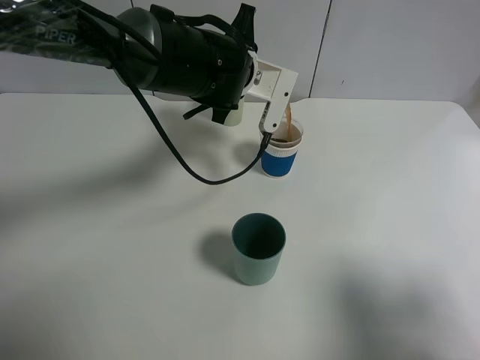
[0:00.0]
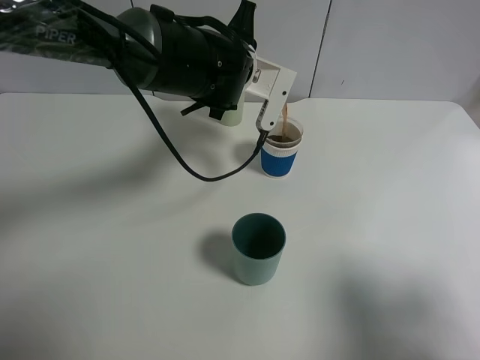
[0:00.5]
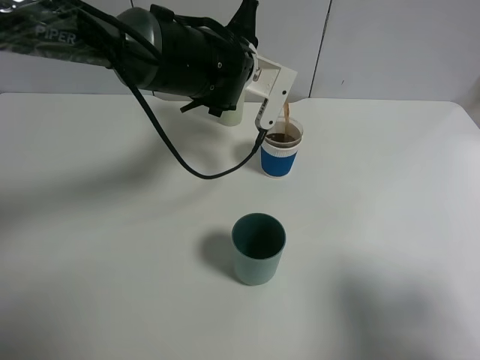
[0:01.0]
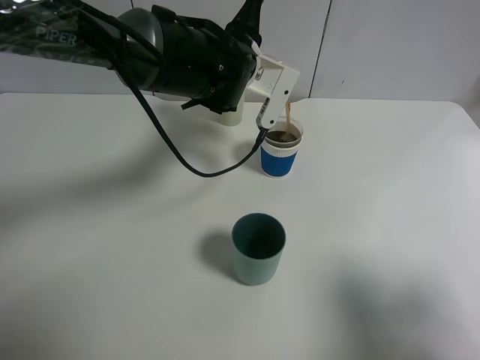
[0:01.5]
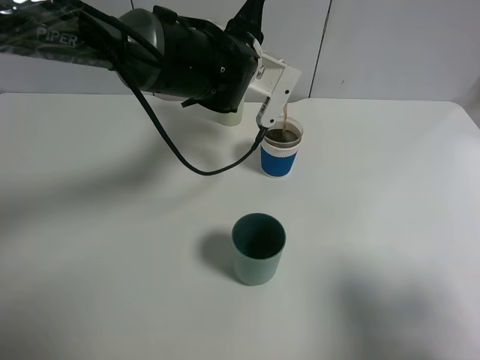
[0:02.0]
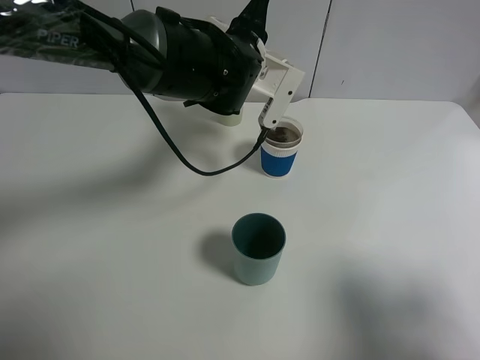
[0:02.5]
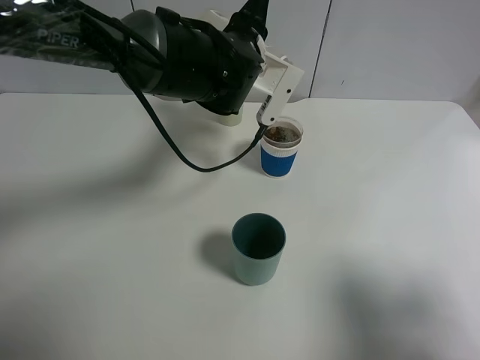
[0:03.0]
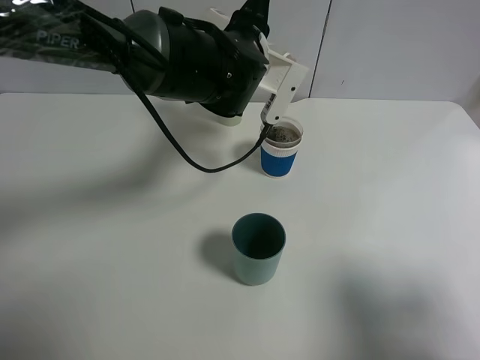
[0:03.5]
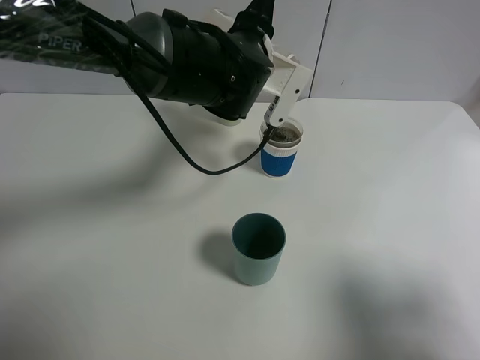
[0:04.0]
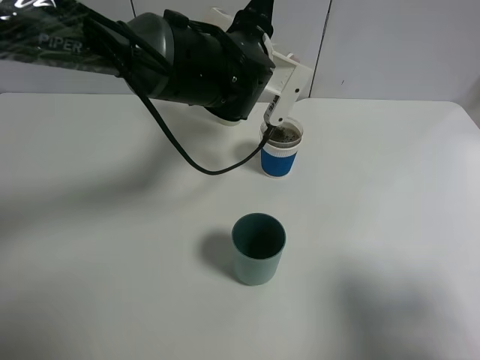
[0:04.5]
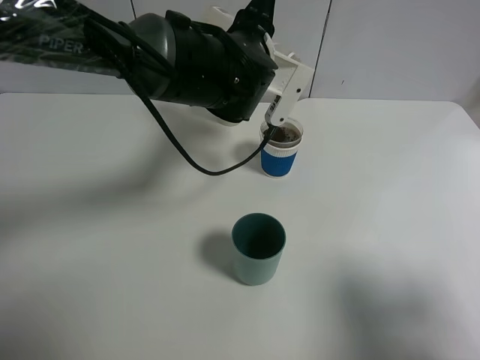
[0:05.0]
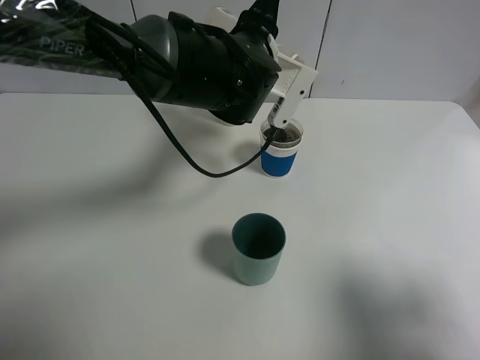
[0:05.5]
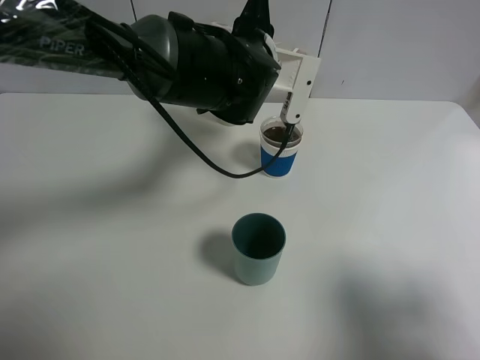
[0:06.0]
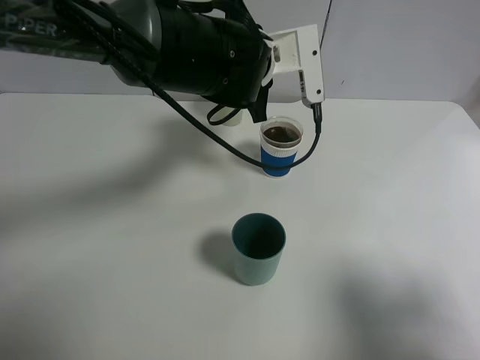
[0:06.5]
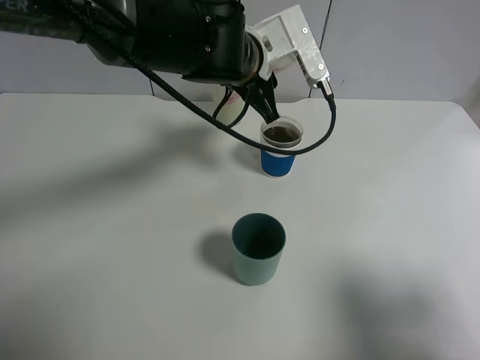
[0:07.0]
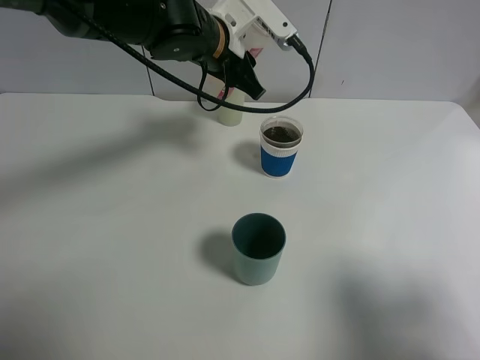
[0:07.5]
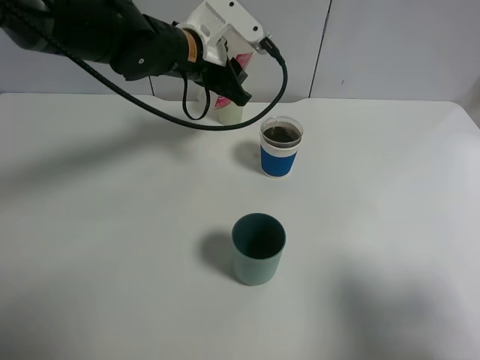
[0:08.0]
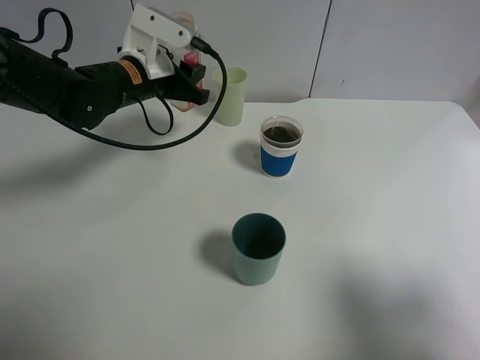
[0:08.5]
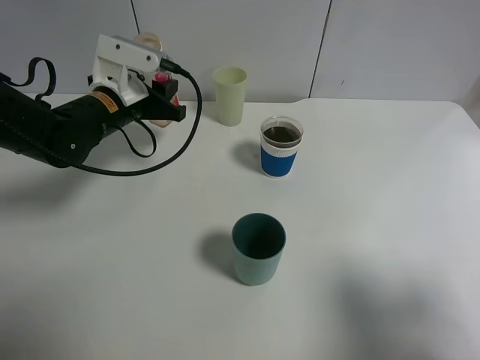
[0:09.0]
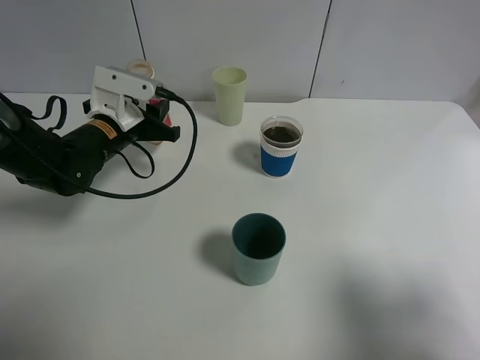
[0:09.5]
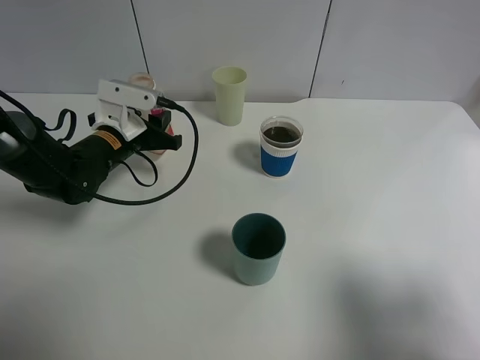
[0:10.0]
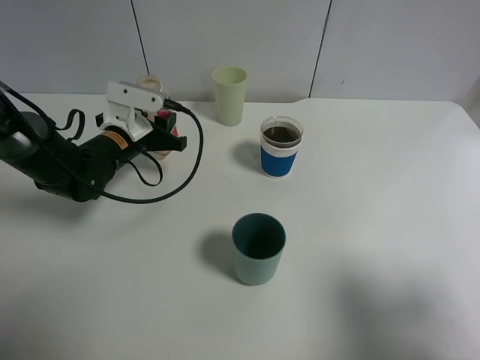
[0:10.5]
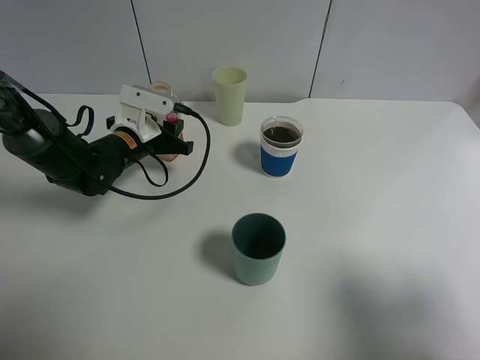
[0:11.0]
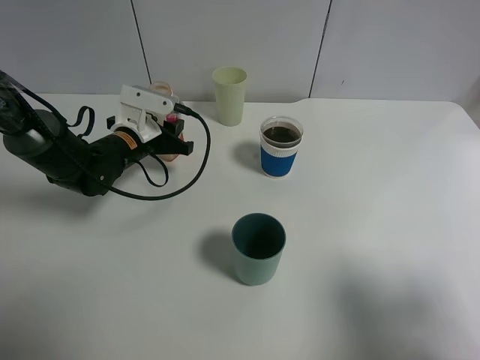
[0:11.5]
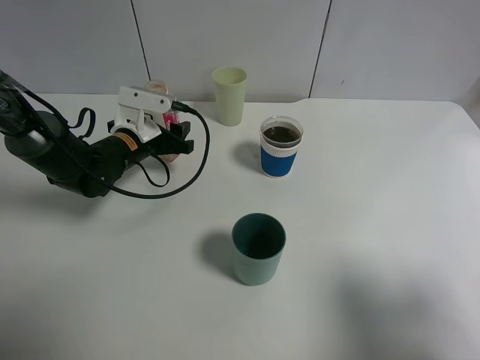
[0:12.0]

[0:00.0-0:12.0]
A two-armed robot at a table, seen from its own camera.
Task of the whole recording: use a gripper to hold the bottle of the drink and pour it into a random cup.
Step, 0:00.0 to 0:06.5: Pour the mineral water into the paper cup with the left gripper.
0:00.0 to 0:06.0: The grippers make only small movements.
0:06.0 to 0:08.0: The left gripper travels to the left by approximately 10 cm.
0:08.0 to 0:10.0: The left gripper heads to the left and downward, covering approximately 15 cm.
0:10.0 to 0:12.0: The left gripper opens.

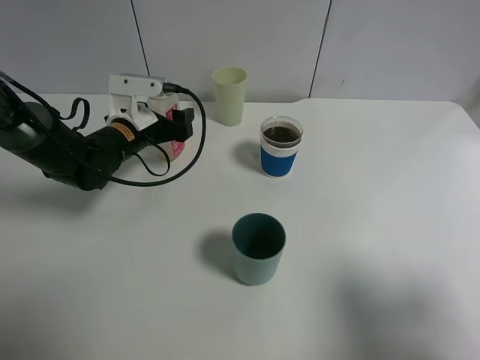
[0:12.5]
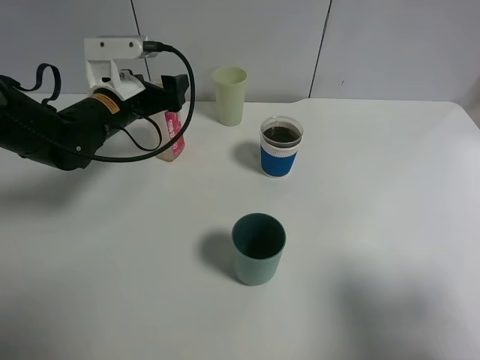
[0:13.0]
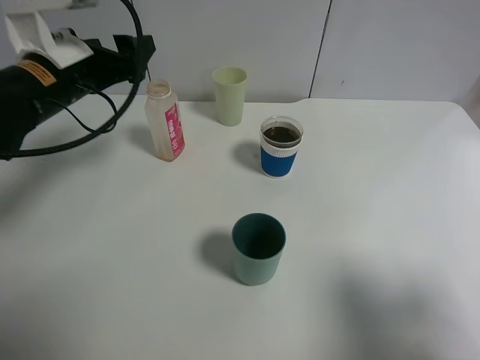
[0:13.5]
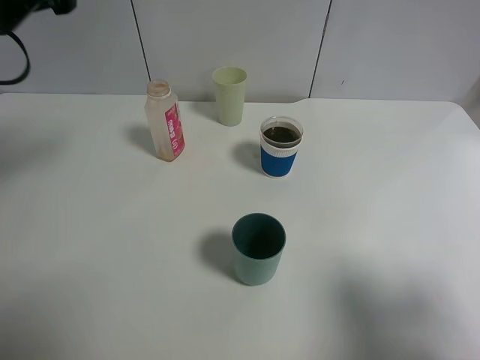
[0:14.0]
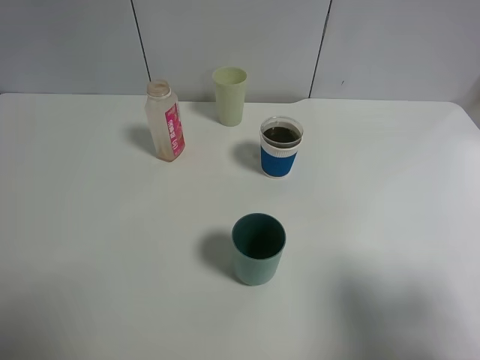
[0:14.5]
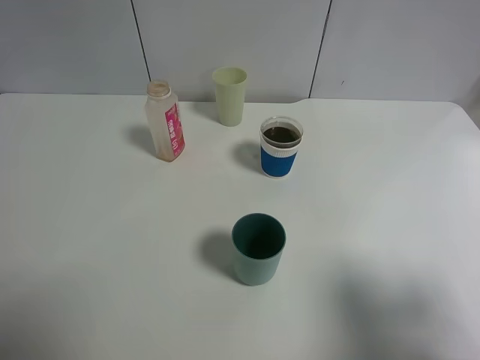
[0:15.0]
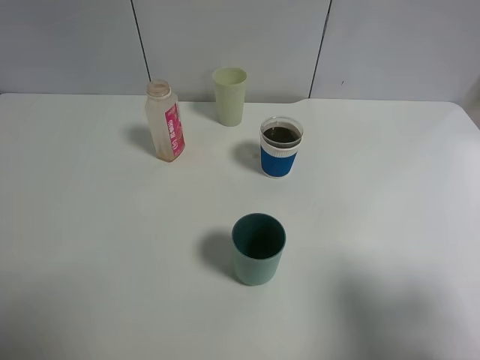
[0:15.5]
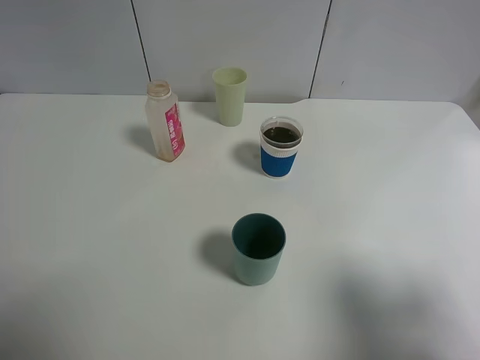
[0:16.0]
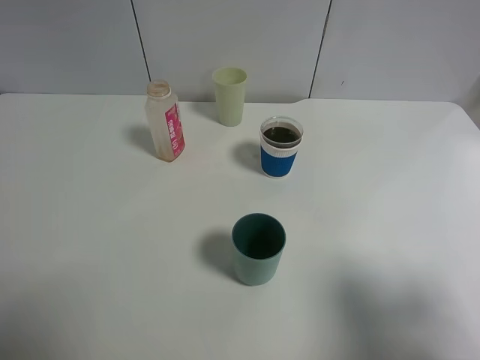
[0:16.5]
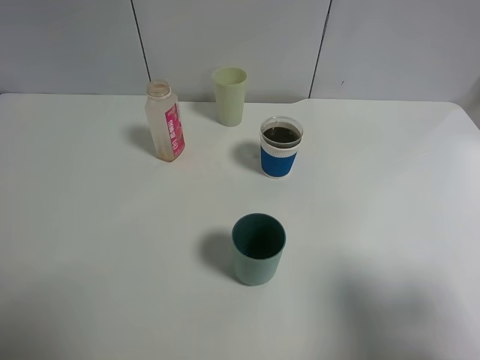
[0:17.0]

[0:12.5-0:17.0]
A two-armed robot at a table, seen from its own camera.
Task of the whole recording: use a gripper to hold the bottle of the drink and pour it into a random cup.
0:12.5 to 0:14.5: The left gripper shifts about 40 cm upward, backward and to the left.

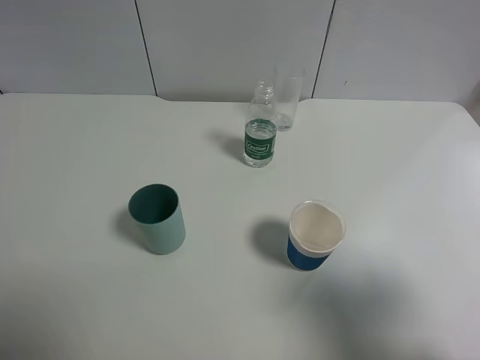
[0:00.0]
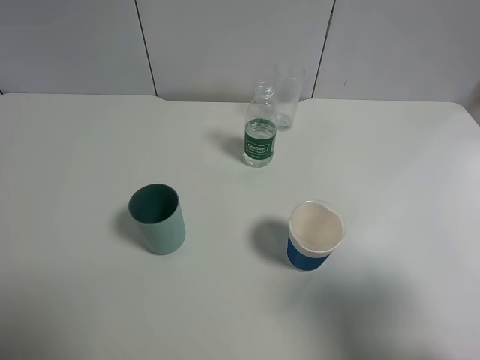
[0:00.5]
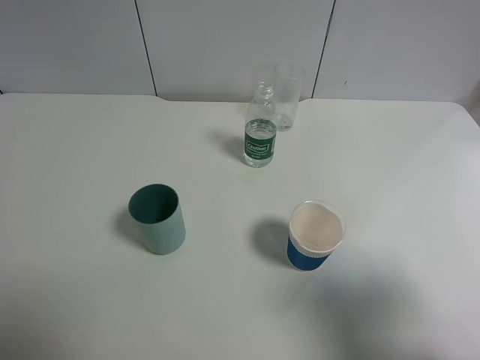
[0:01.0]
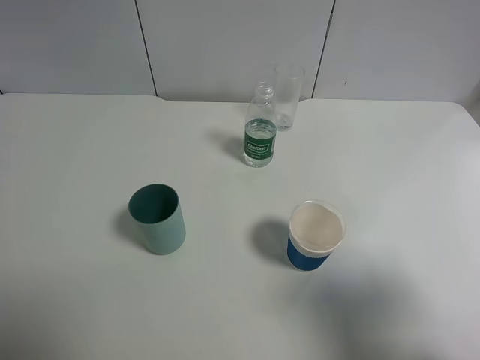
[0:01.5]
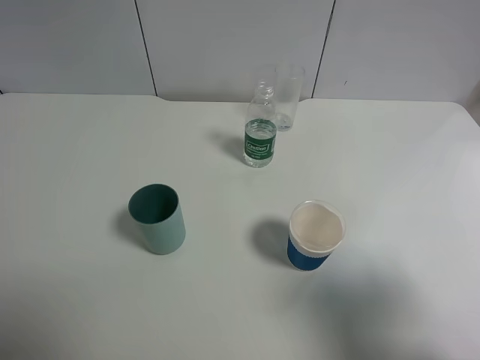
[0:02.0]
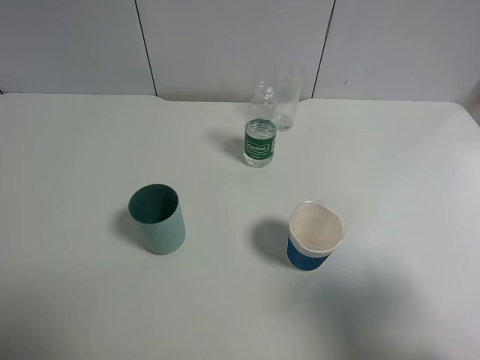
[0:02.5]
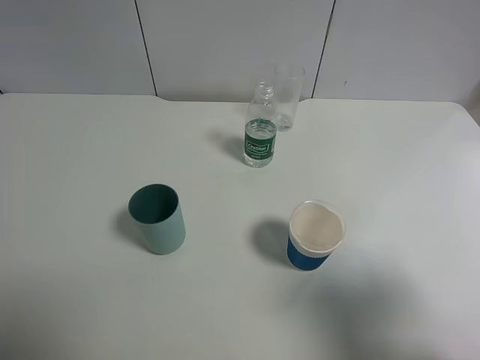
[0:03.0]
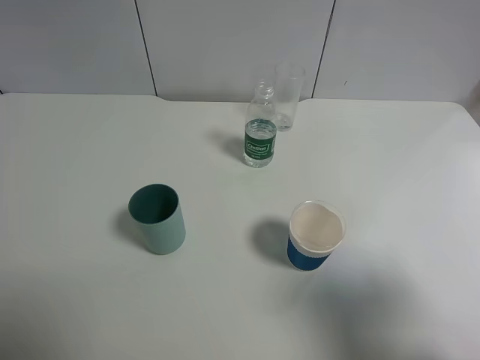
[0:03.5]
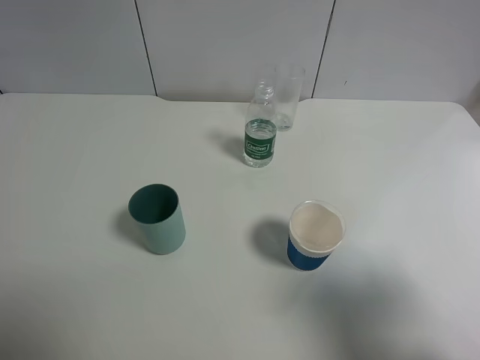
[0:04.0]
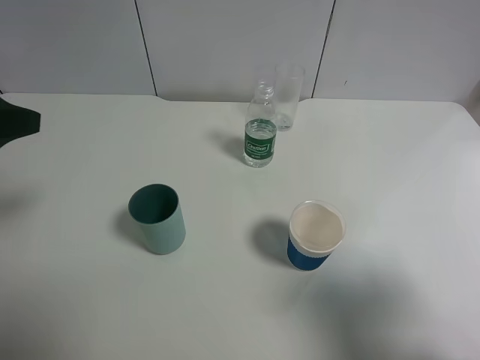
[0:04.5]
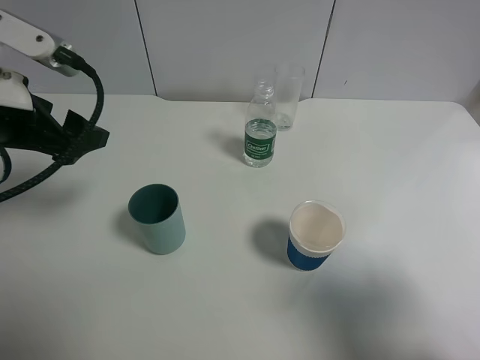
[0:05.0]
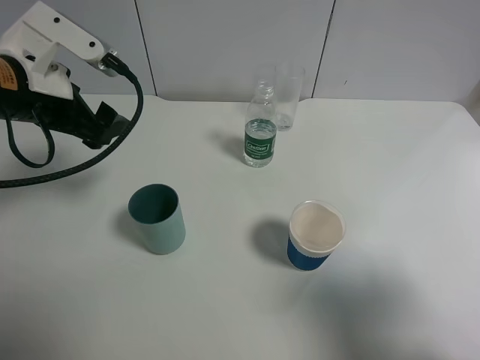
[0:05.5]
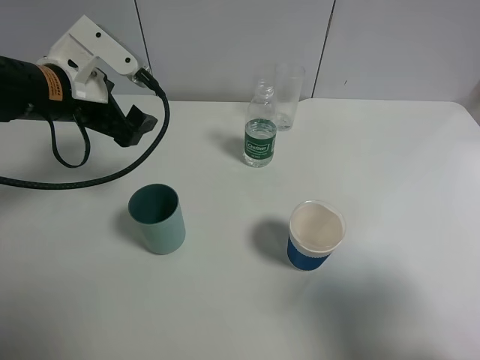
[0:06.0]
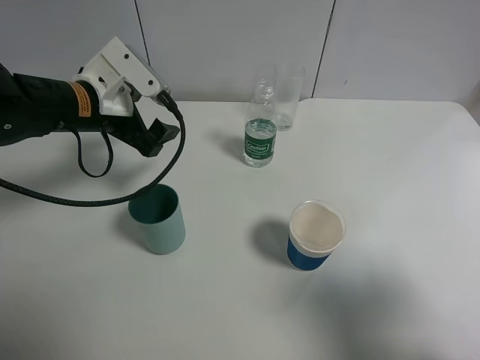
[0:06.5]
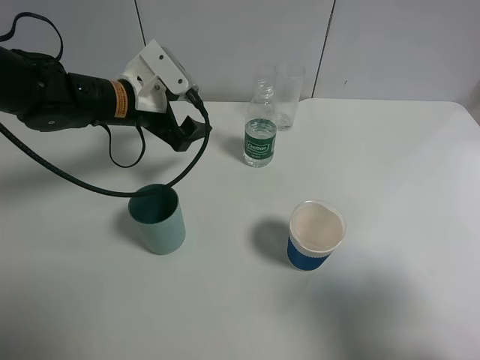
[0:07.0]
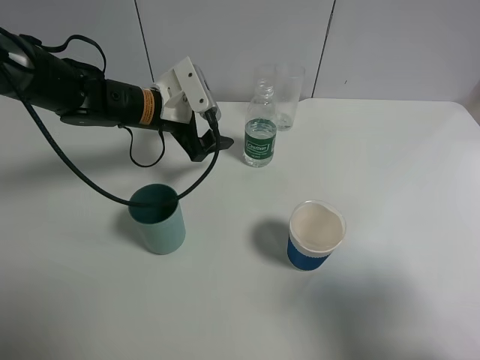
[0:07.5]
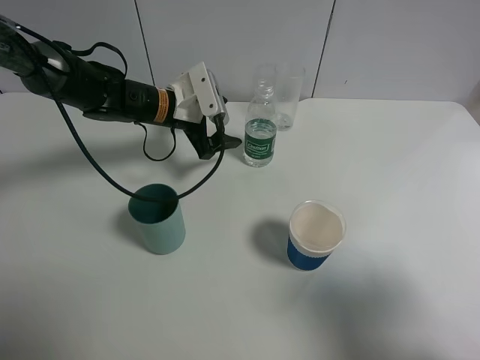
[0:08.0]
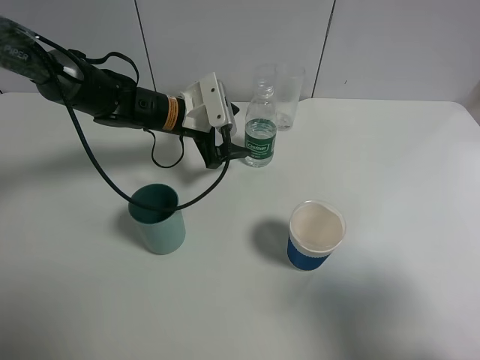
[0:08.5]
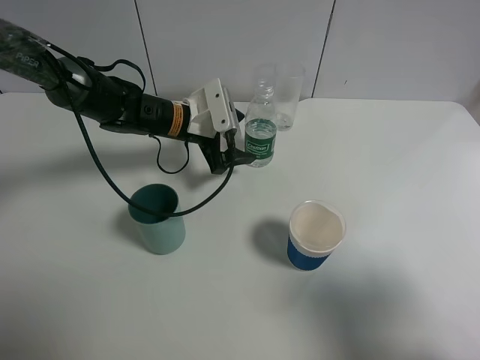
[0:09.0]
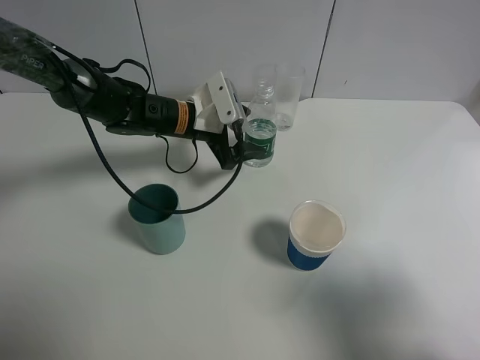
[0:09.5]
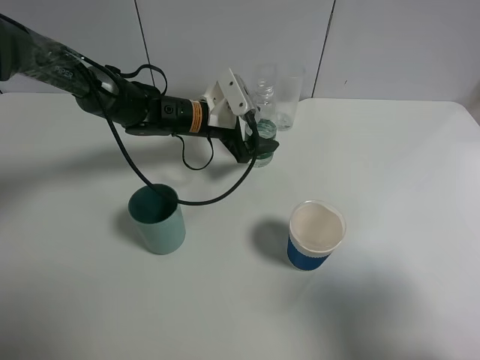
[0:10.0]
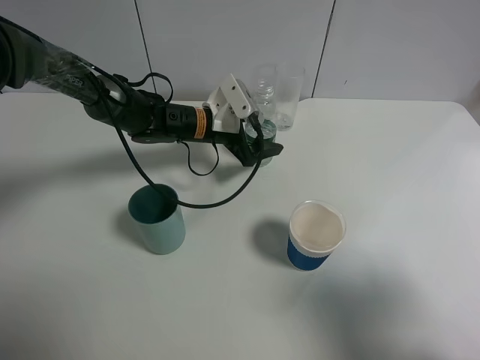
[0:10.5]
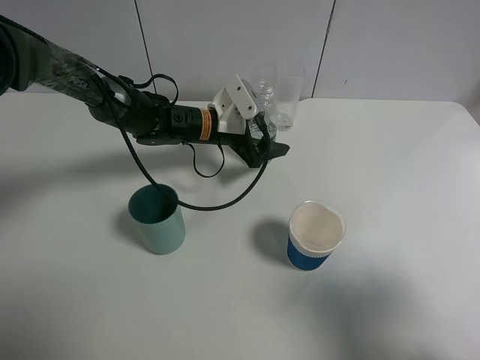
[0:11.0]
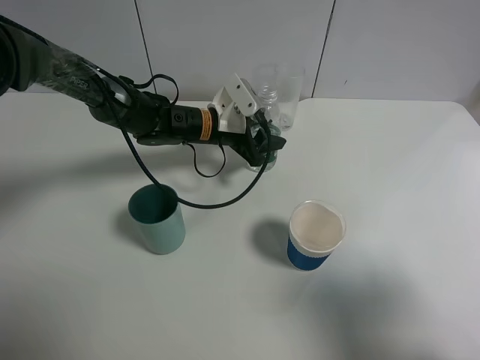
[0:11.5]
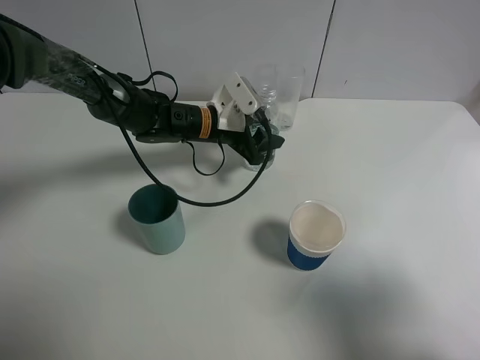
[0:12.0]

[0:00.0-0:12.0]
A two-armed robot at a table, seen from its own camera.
Task of the whole recording: use a gripper to hold the bottle of the drink and pour it into a random cup.
Step, 0:00.0 to 0:11.5: Grasp the mineral water bottle with the left gripper.
0:00.0 to 0:02.0: Neither gripper changes place.
0:04.0 to 0:06.0: The left gripper moves forward, to the right and downward, some 25 cm.
0:06.0 to 0:08.0: The left gripper is displaced forward, downward and to the right by some 15 cm.
0:08.0 to 0:10.0: The left gripper shifts by roughly 5 cm.
0:10.0 to 0:12.0: The left gripper closes up.
